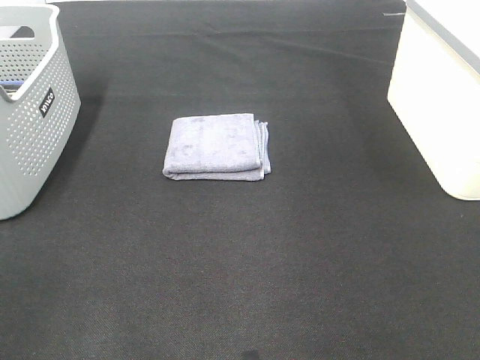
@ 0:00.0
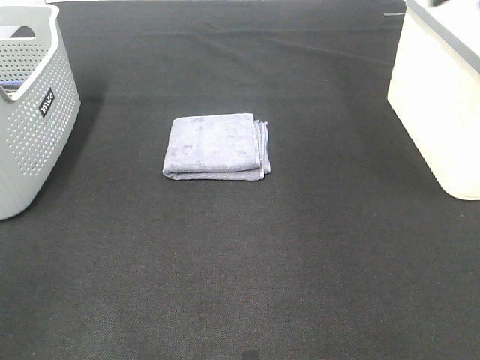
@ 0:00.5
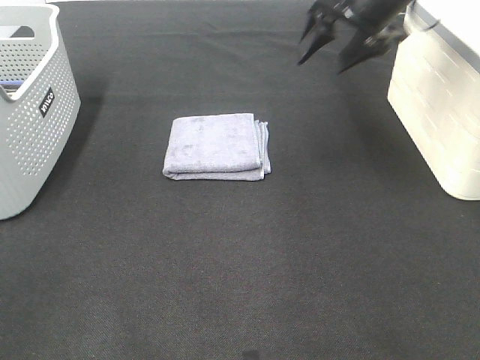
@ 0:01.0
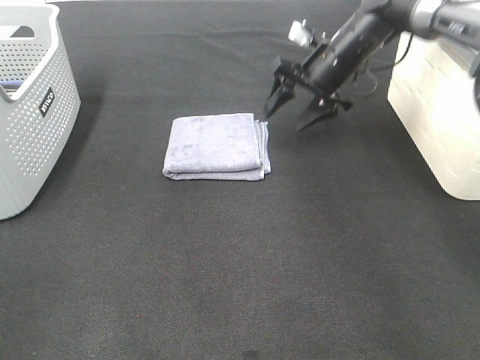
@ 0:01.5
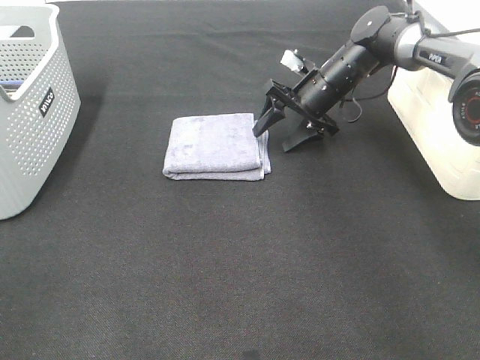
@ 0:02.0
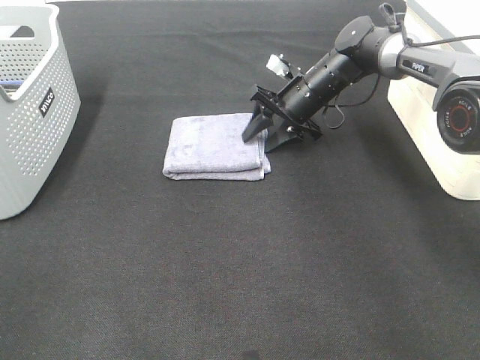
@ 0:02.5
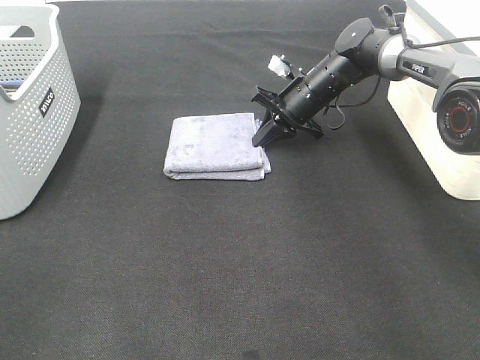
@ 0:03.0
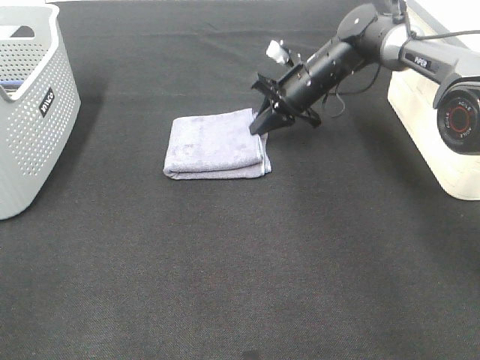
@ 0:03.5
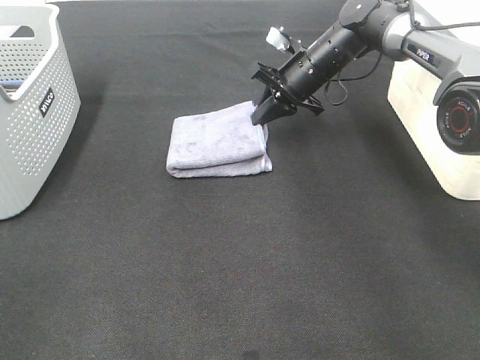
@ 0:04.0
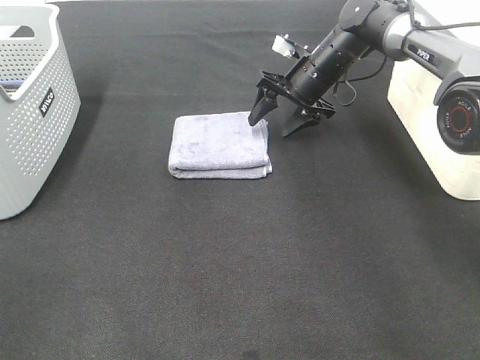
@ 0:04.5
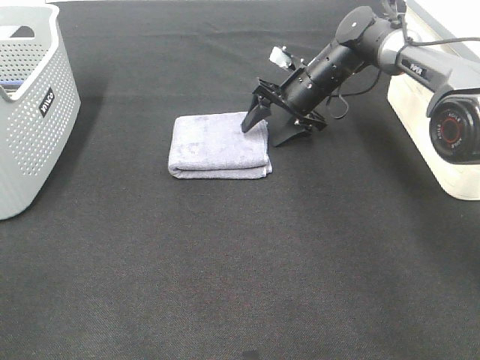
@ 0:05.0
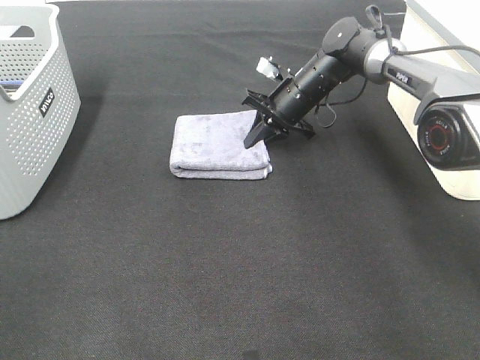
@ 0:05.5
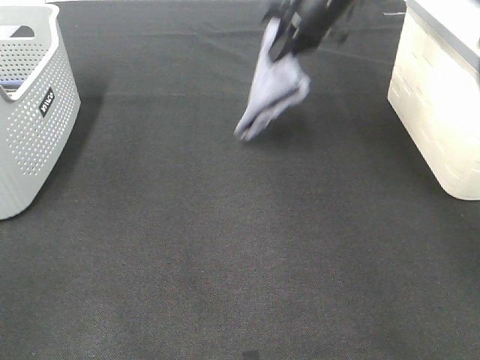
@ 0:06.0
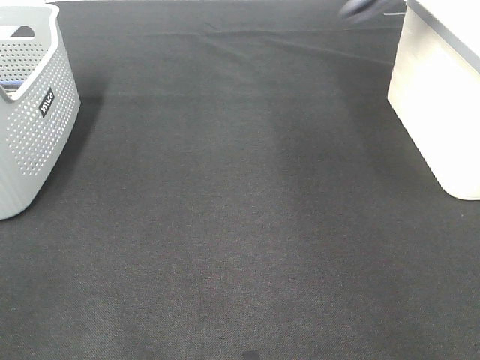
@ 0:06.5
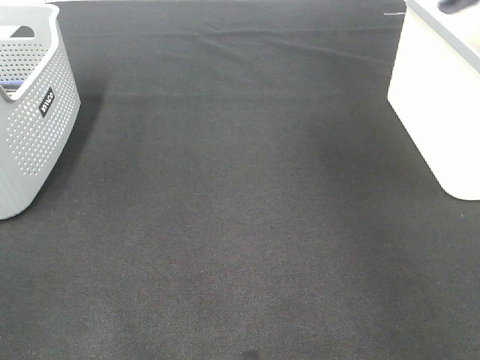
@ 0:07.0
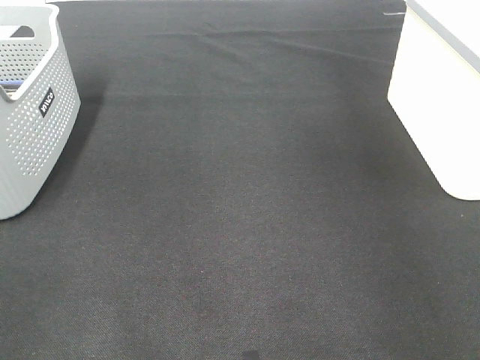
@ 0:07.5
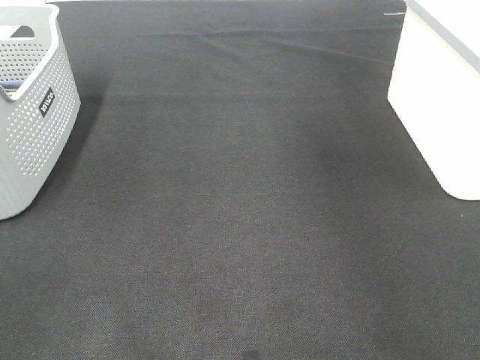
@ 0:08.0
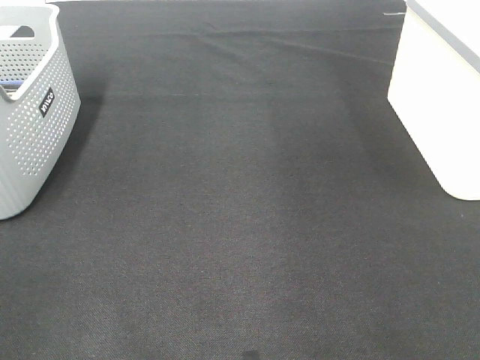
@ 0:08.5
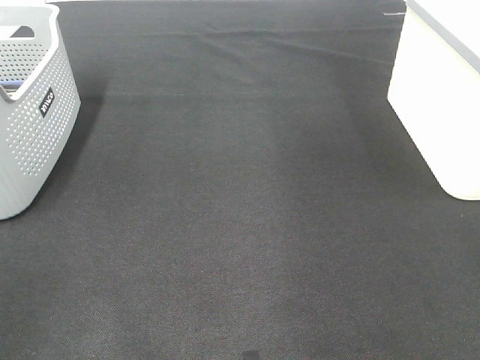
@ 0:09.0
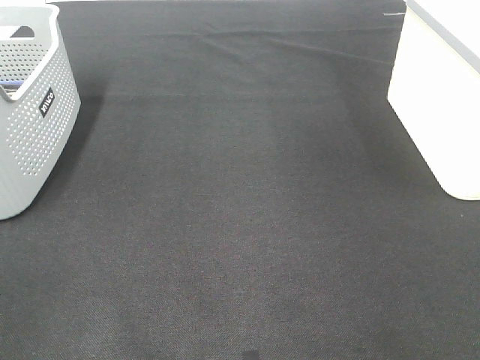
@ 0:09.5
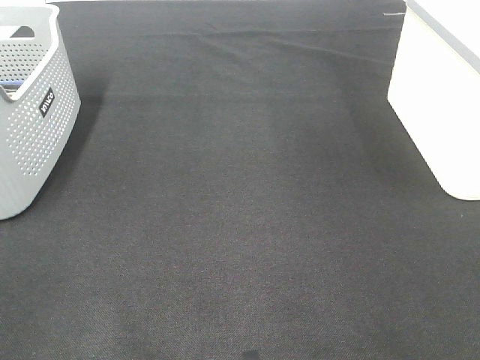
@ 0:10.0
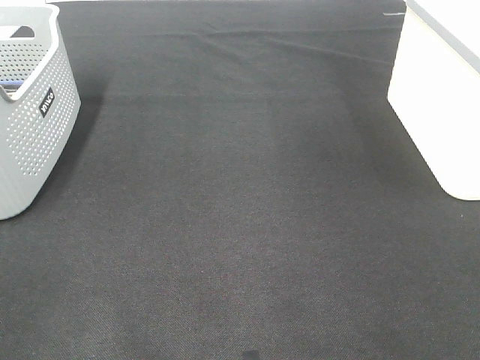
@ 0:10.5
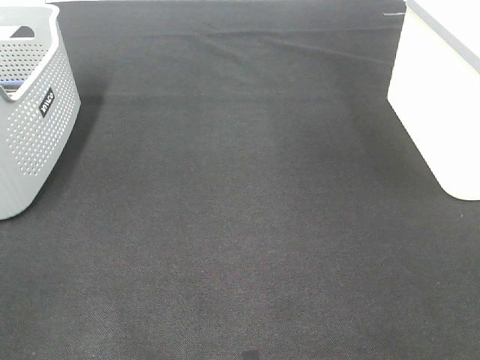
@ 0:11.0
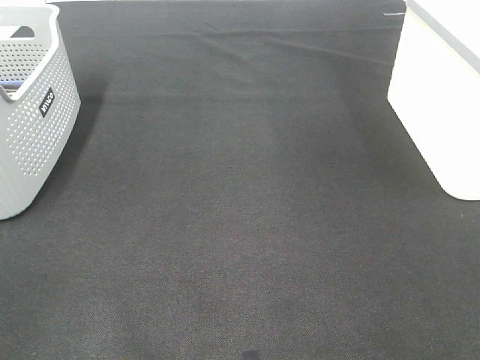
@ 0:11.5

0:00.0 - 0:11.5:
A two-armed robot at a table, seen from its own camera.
Step, 0:00.0 - 0:05.0: Right hand: grab the folded grey towel.
Step, 0:05.5 - 0:07.5: Right hand: place the grey towel in right basket.
0:00.0 - 0:02.0: The right gripper is displaced forward, downward and to the left by roughly 40 cm.
0:02.0 - 0:04.0: The right gripper closes its fingers.
0:04.0 - 0:06.0: The right gripper moves upward, some 15 cm, and opens, then closes once more.
0:06.0 - 0:07.5: The right gripper shifts roughly 25 cm to the right, and opens its fingers.

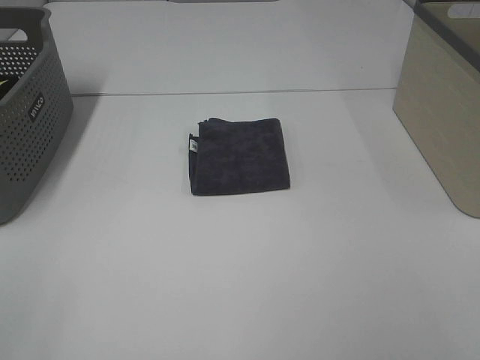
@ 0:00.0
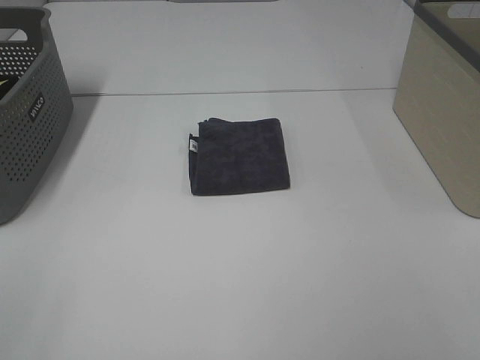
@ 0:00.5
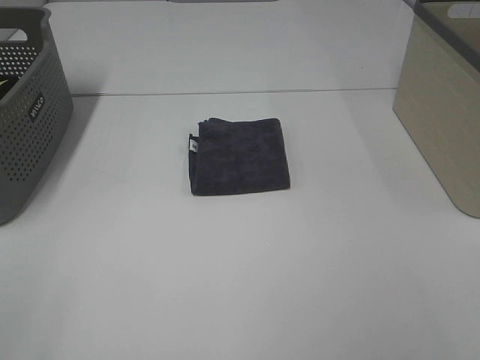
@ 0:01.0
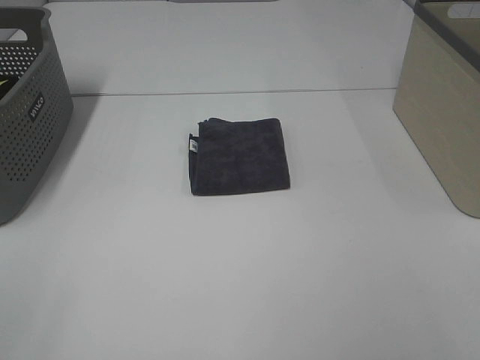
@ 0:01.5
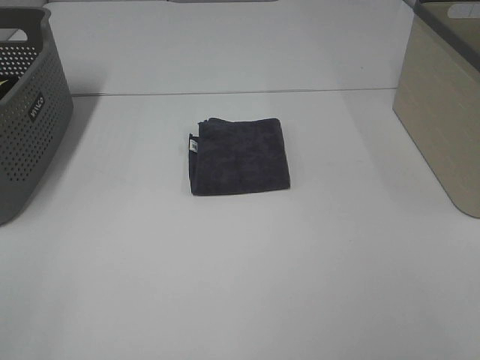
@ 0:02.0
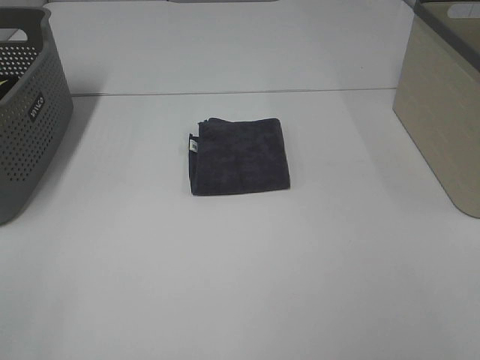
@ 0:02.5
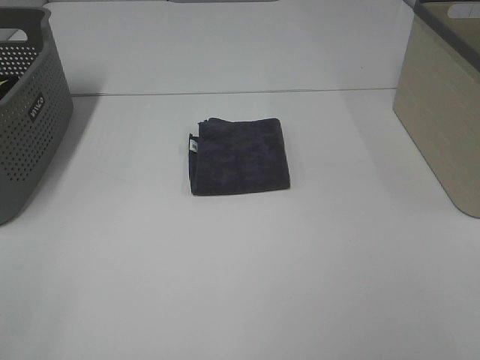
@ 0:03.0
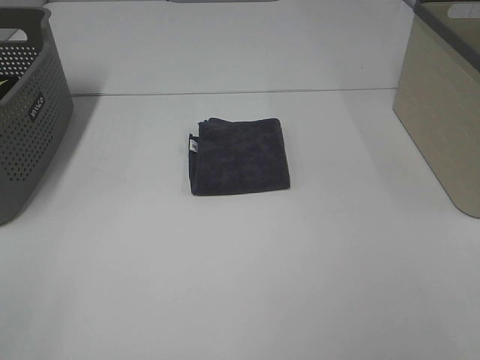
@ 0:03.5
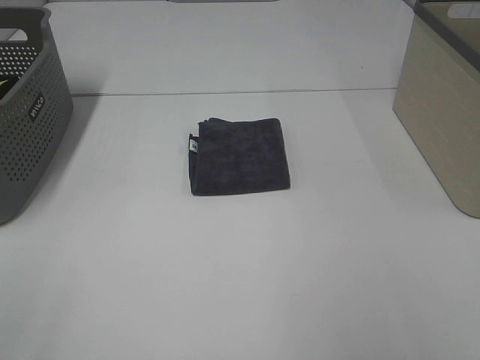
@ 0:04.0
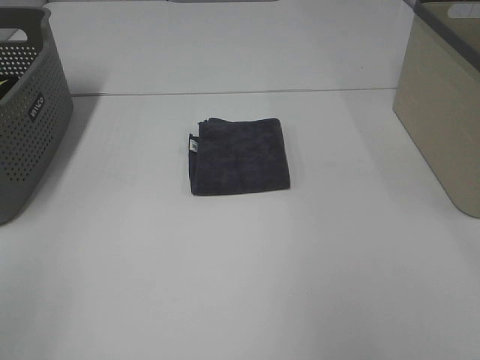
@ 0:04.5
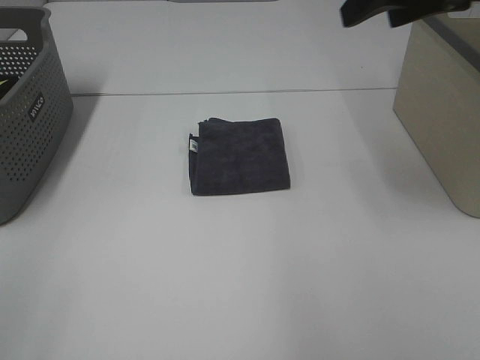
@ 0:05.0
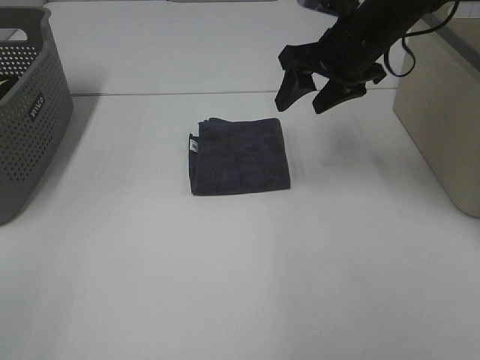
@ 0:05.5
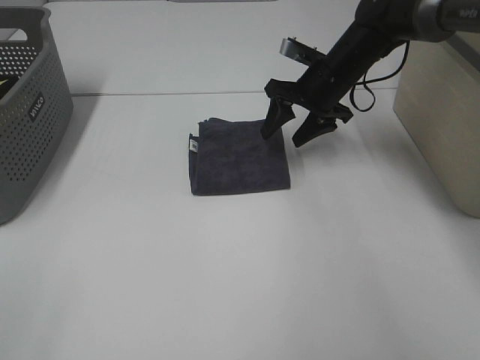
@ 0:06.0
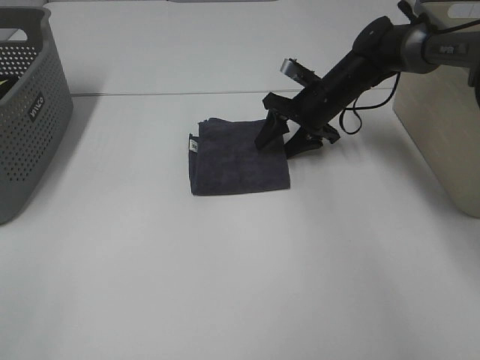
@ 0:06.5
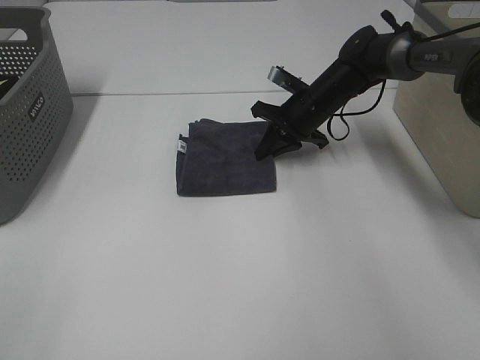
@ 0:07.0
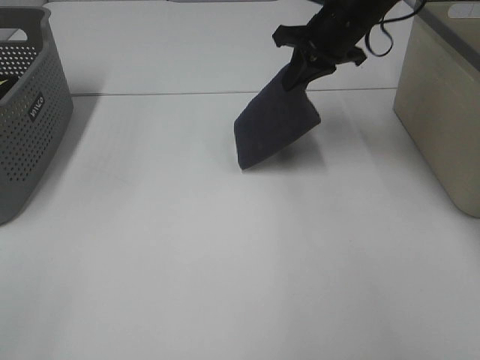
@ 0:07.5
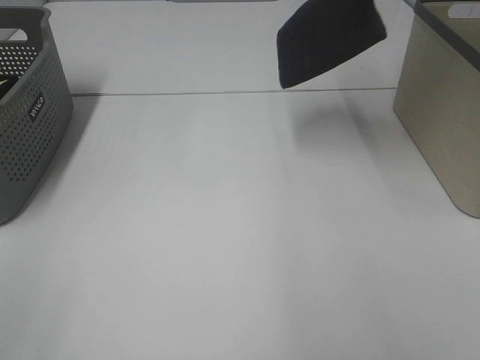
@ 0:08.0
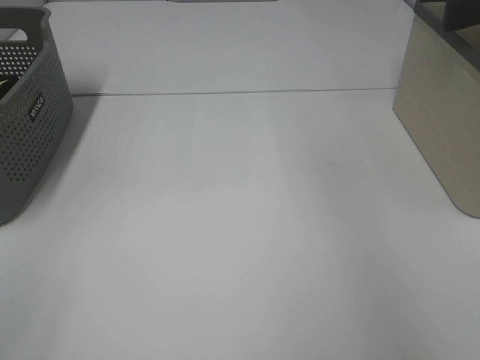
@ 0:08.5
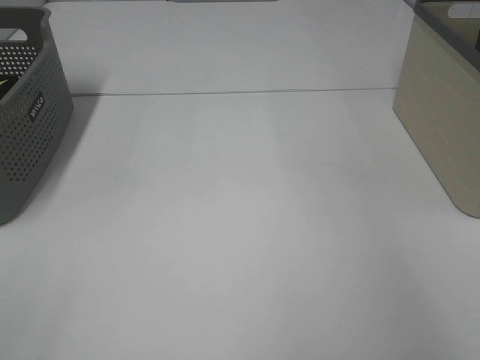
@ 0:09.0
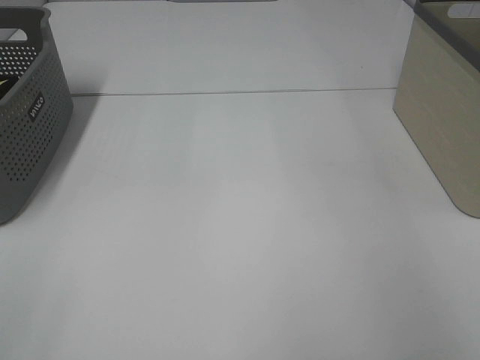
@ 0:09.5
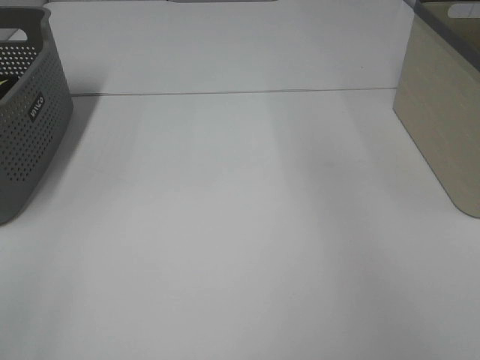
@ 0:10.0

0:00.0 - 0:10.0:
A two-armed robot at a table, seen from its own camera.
Step, 0:00.0 - 0:06.5: Right hand: grab the folded grey towel.
Step, 0:07.0 - 0:09.5: Right hand: place the grey towel in right basket.
0:00.0 - 0:02.0: The two grippers keep their place.
0:04.0 - 0:06.0: The right gripper moves forward and downward, about 50 cm.
0:06.0 - 0:08.0: The right gripper goes some 25 cm upward, and closes.
0:08.0 - 0:10.0: The right gripper goes approximately 10 cm to the right, and opens its fingers.

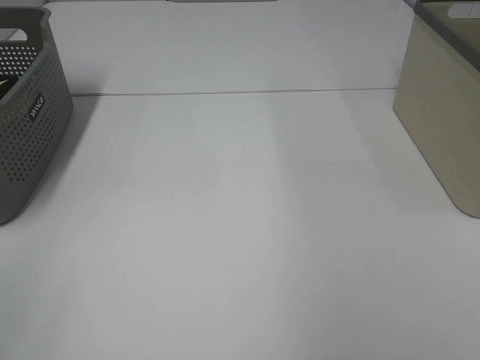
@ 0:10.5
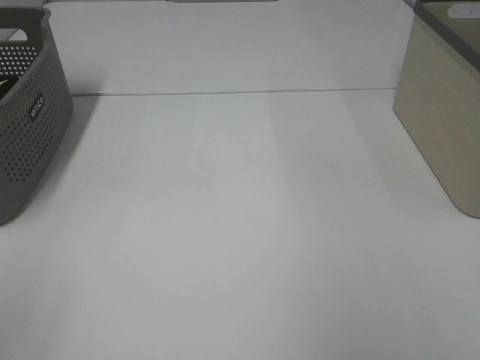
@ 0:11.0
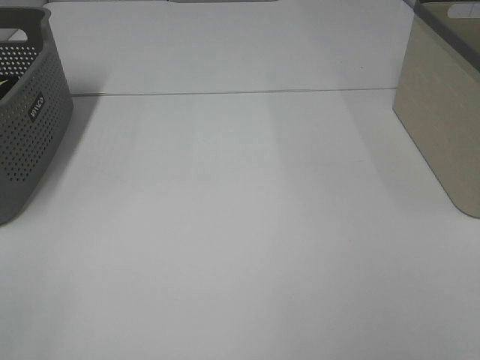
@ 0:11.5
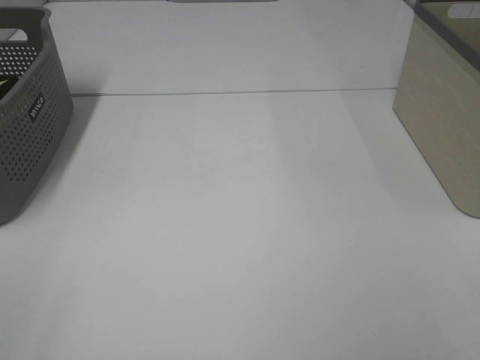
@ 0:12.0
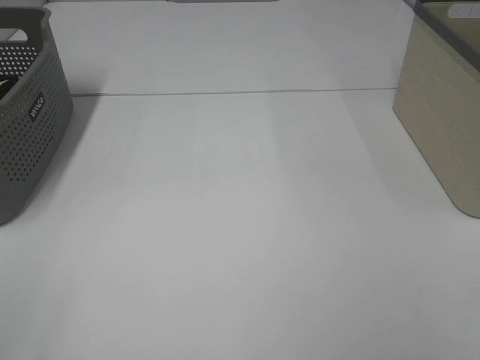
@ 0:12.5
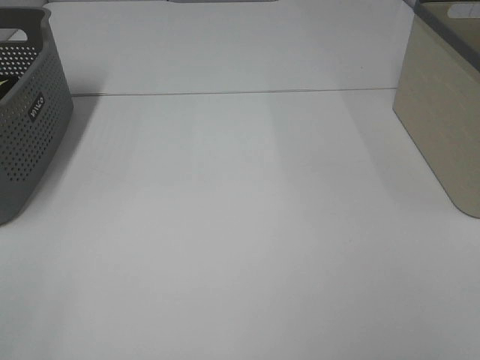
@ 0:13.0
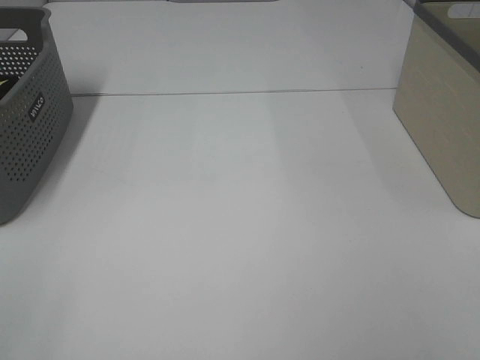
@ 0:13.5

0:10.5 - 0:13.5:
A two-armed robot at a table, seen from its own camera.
0:12.0 - 0:13.5: The two grippers keep their place.
